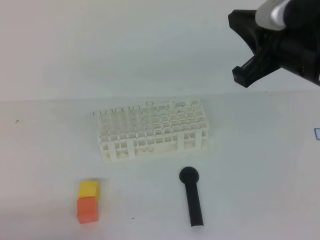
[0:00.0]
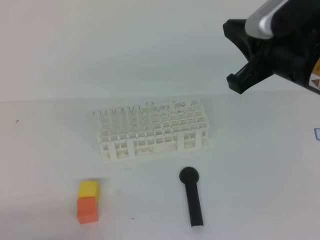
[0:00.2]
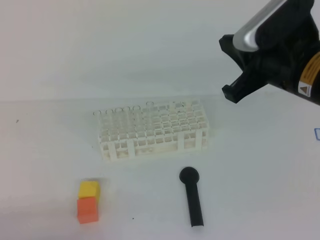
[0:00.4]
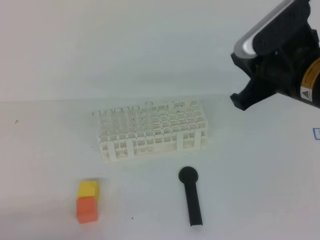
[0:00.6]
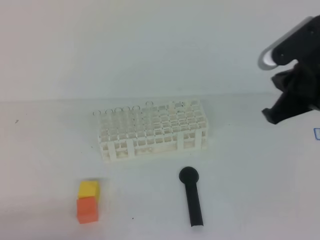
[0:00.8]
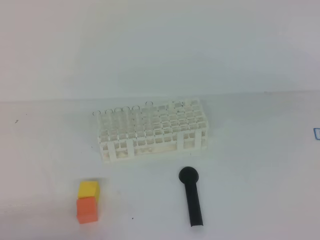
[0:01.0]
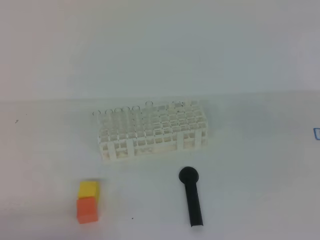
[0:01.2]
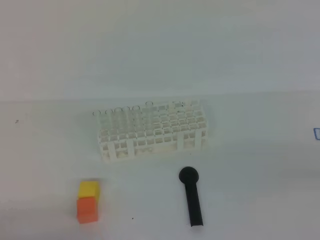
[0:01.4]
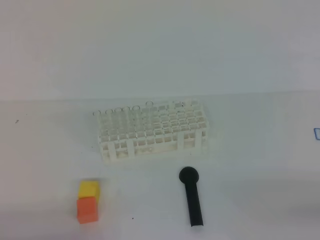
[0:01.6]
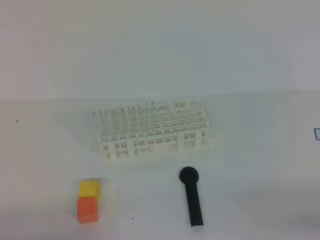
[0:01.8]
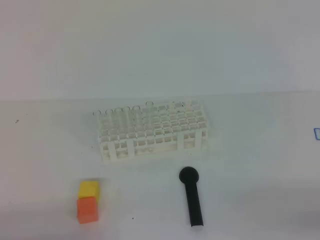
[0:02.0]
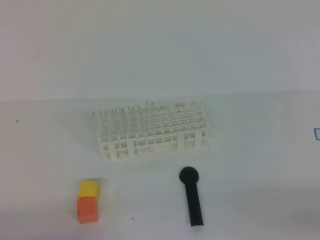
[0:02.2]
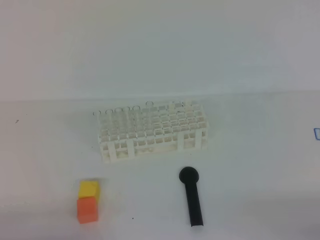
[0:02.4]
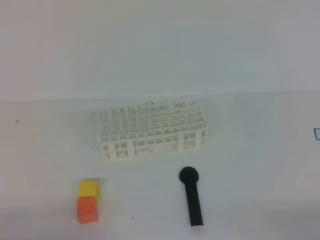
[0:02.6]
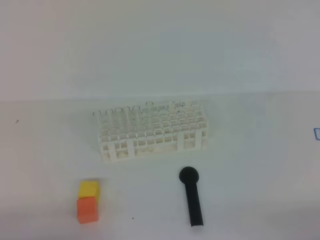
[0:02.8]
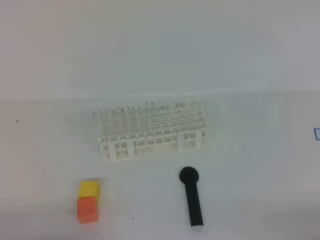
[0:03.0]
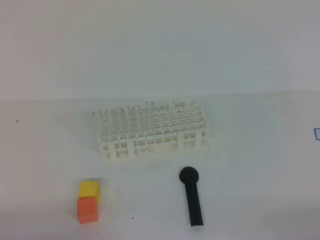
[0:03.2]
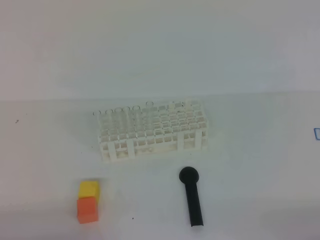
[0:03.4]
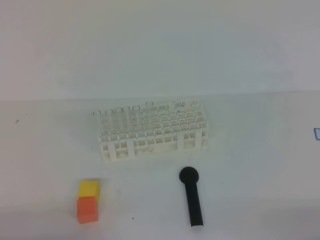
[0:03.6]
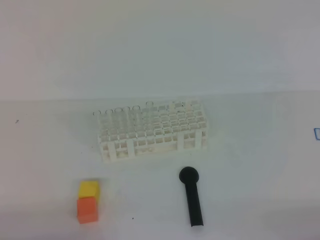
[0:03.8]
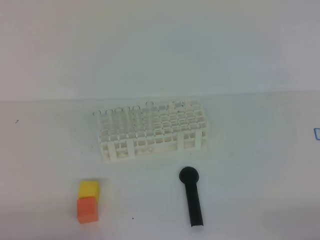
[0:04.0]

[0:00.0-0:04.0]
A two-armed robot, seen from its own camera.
0:00.0 to 0:01.4: The right gripper shifts some 25 cm to the right, backward and downward.
0:02.6 to 0:04.0: Both grippers stay put.
